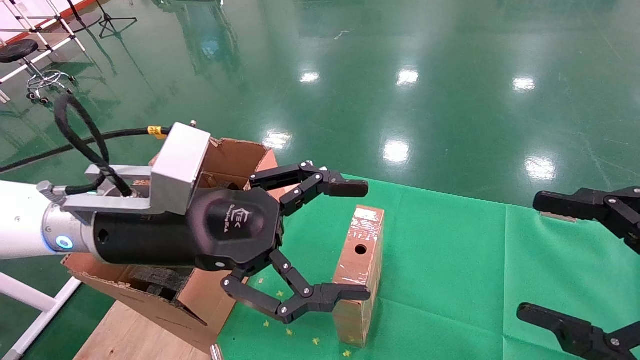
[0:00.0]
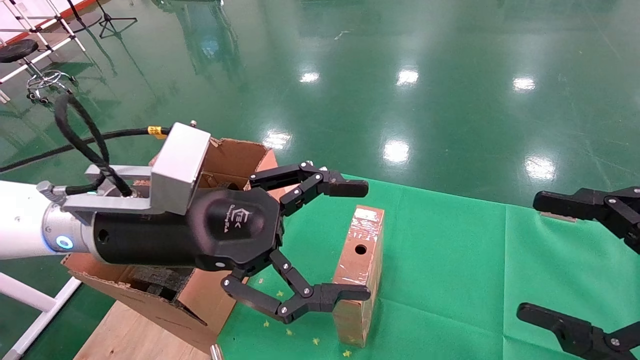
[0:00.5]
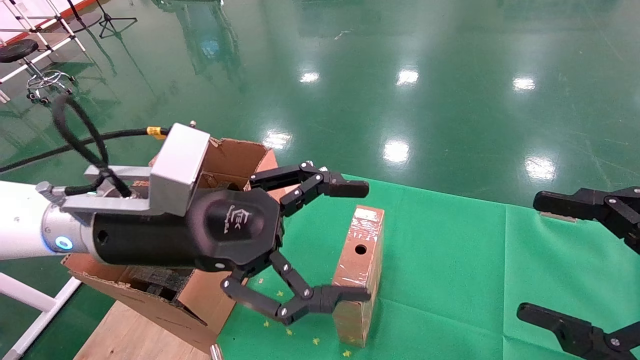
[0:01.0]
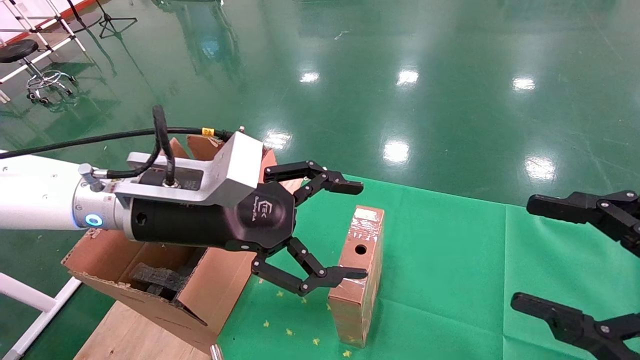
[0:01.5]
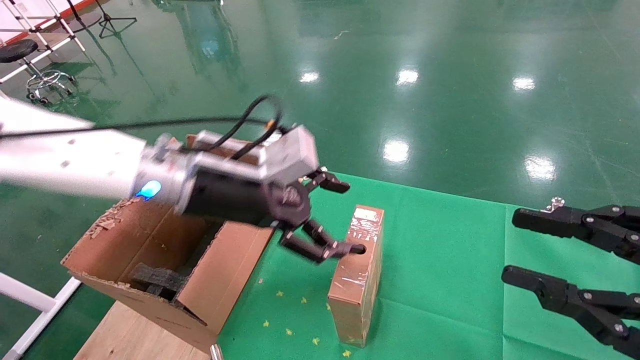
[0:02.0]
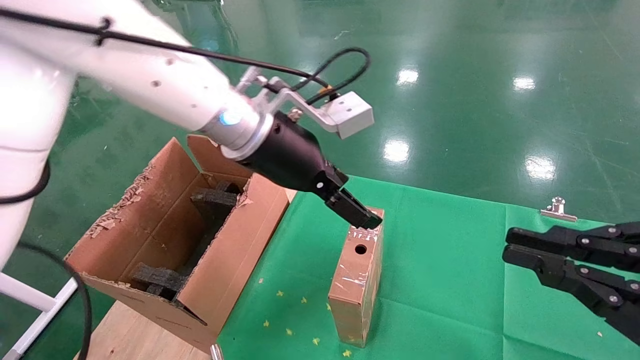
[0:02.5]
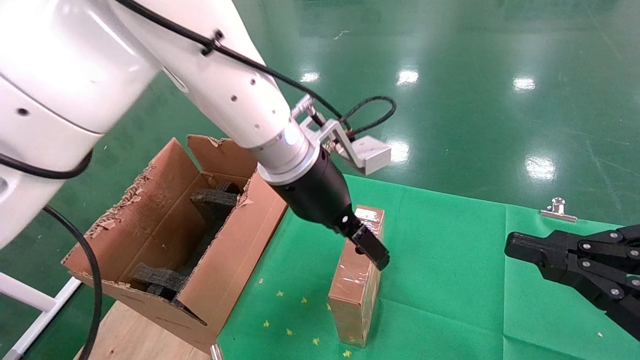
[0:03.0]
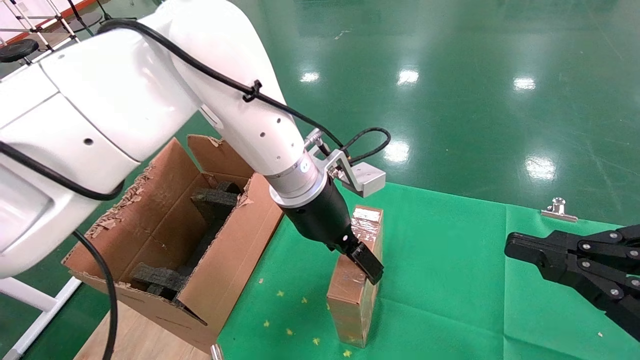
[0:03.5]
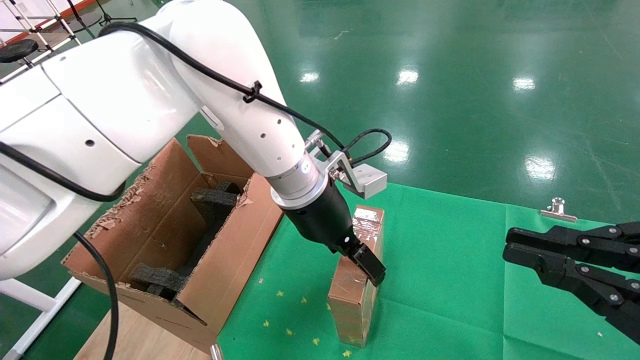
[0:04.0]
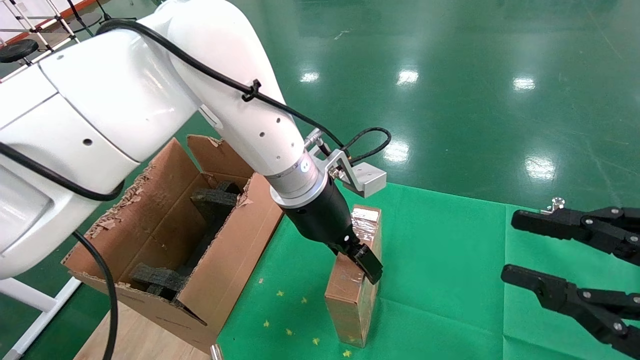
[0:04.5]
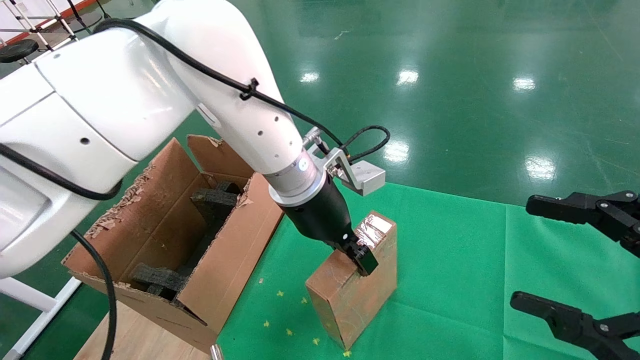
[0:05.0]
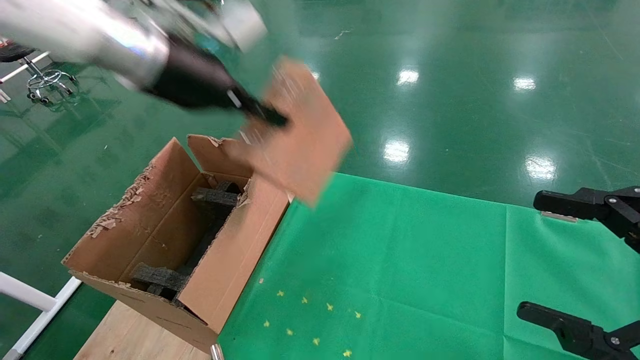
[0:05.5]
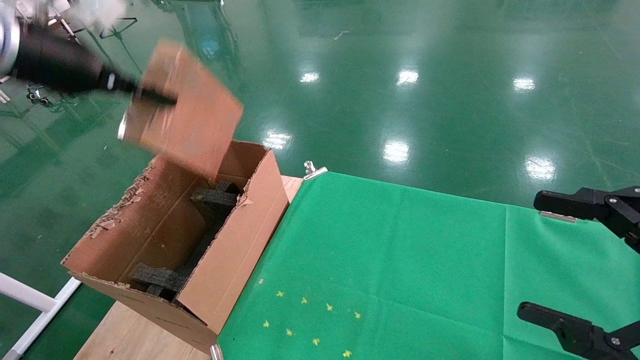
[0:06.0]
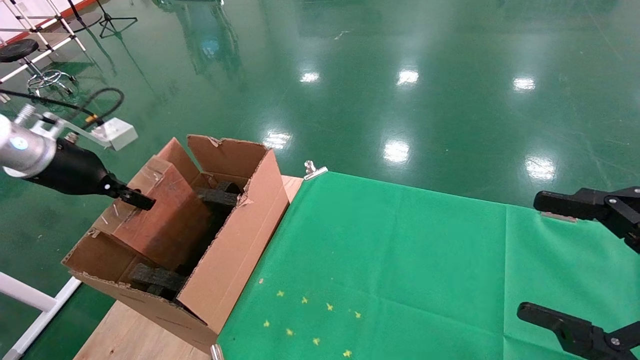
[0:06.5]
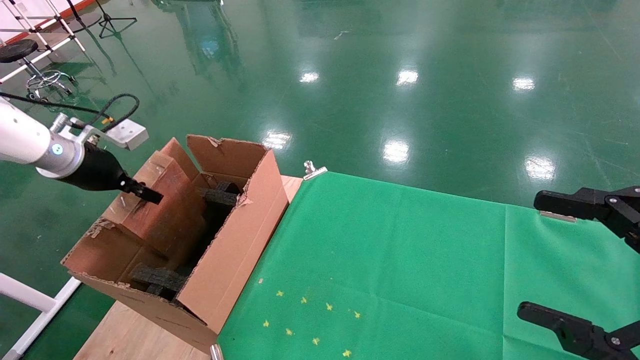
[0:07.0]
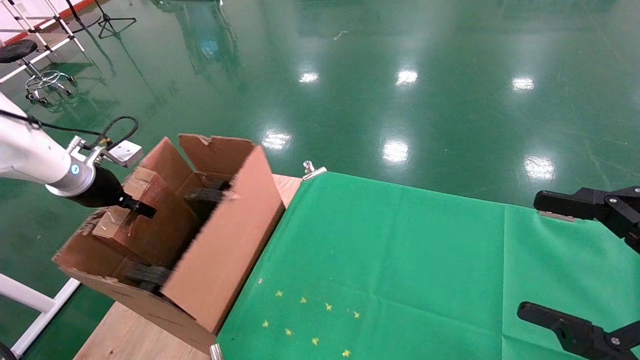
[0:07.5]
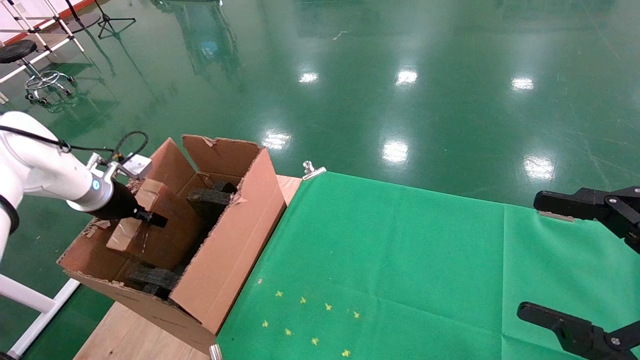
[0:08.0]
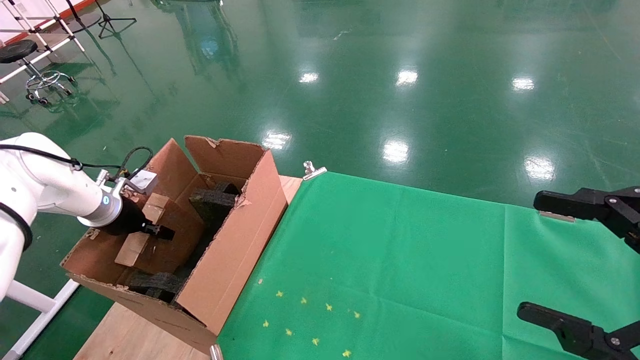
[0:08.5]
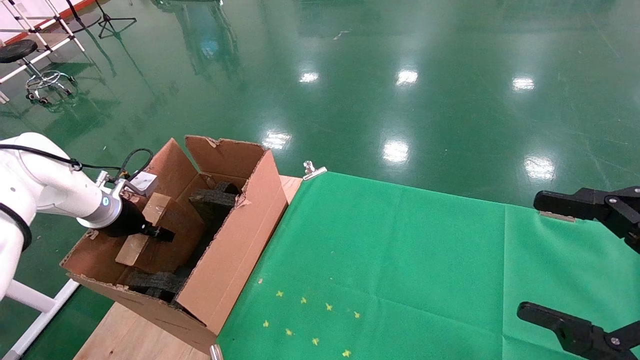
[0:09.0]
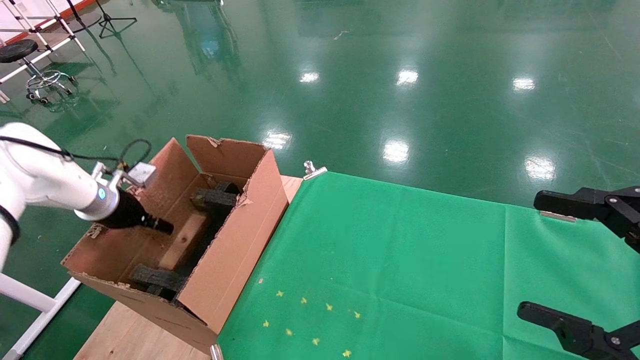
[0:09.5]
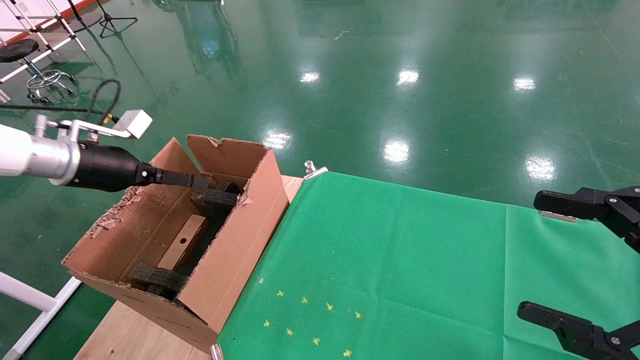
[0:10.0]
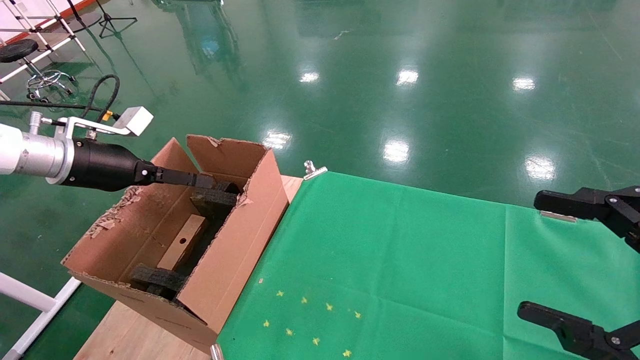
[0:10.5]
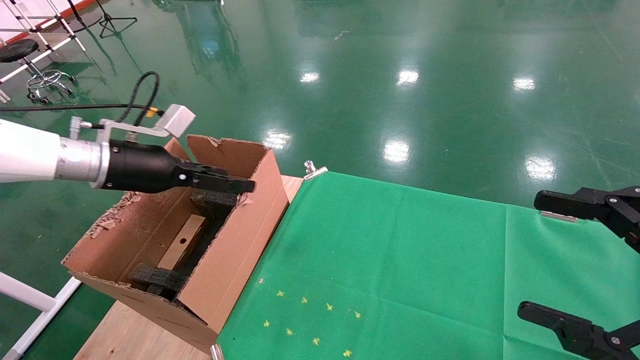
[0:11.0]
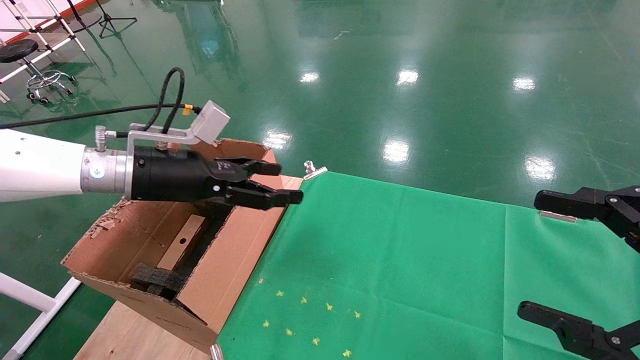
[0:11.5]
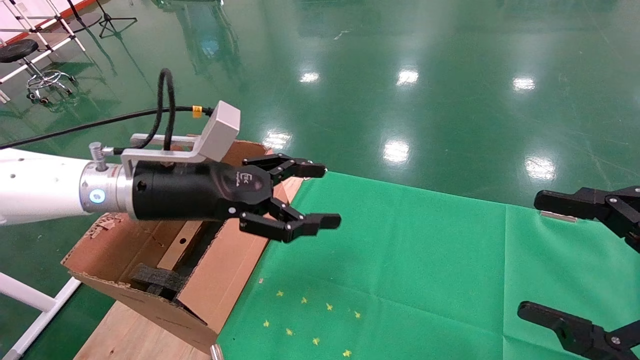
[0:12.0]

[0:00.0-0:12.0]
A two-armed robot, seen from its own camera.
Task of the whole recording: using a robotic arm to pick up a cardboard box and palace it the carton.
Step, 0:01.5 to 0:04.5: Pick up the mouse and the power cord paper box.
Step, 0:05.0 to 0:09.0: Place the mouse and the power cord paper box into the container.
0:00.0 to 0:02.0: The left gripper is displaced forward by roughly 10 cm. The right gripper closes.
0:02.0 to 0:04.0: The right gripper closes, while the left gripper travels to the right and forward by some 10 cm.
0:04.0 to 0:06.0: The left gripper heads to the left and upward, covering roughly 35 cm, and closes up. Meanwhile the right gripper opens.
0:06.0 to 0:08.0: The left gripper moves downward, to the left and forward, about 25 cm.
0:08.0 to 0:10.0: The left gripper goes roughly 5 cm upward, and opens.
0:10.0 to 0:12.0: The left gripper is displaced to the right by approximately 20 cm.

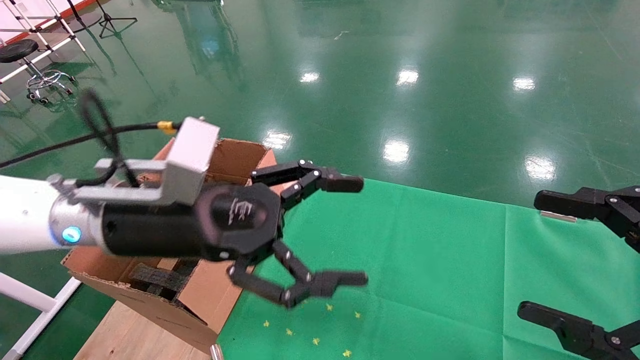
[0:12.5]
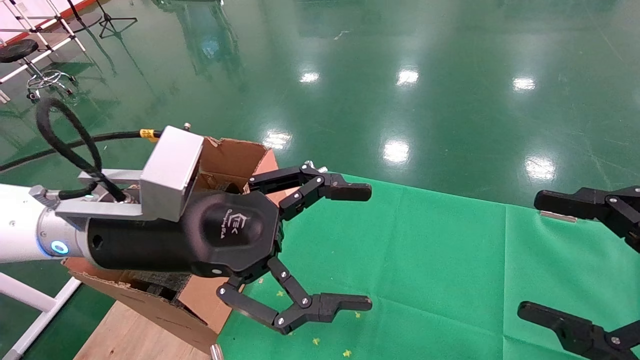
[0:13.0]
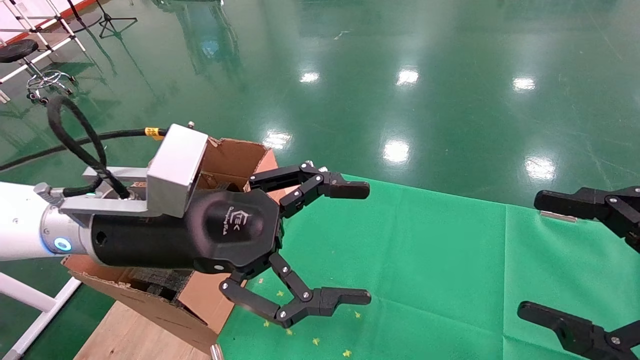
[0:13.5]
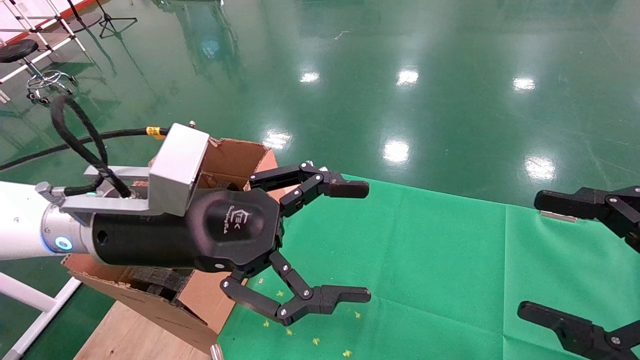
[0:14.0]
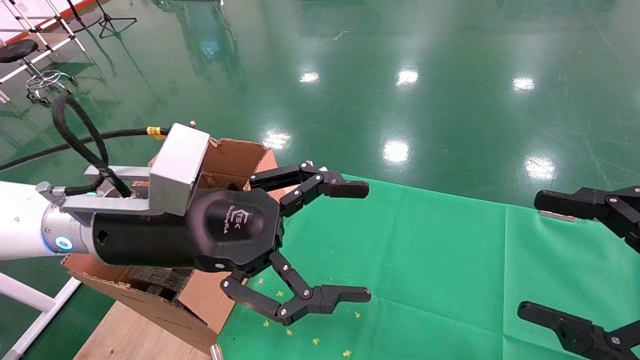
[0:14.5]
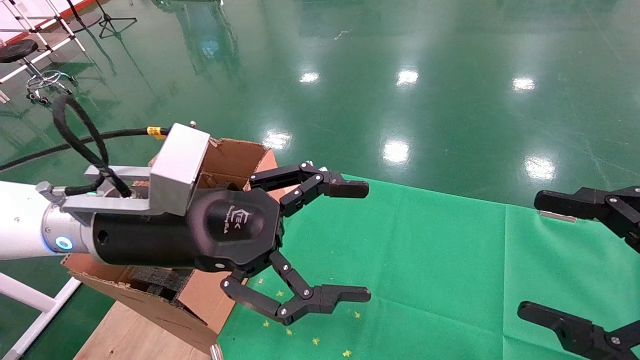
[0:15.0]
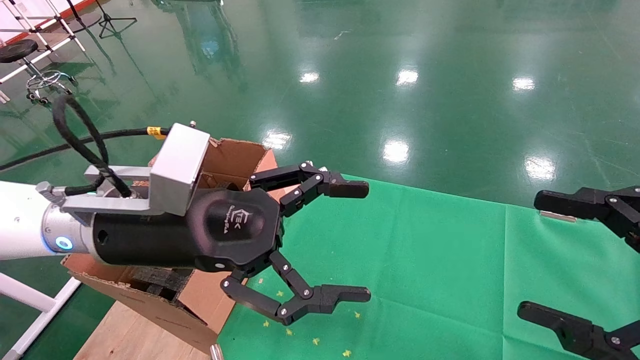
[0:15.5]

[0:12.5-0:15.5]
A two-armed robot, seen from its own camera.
Task of the whole recording: using a robotic arm to pick up a cardboard box and palace it the carton.
0:12.5 to 0:14.0: There are only small adjustments of the grippers.
0:14.0 to 0:15.5: The two grippers keep their place.
